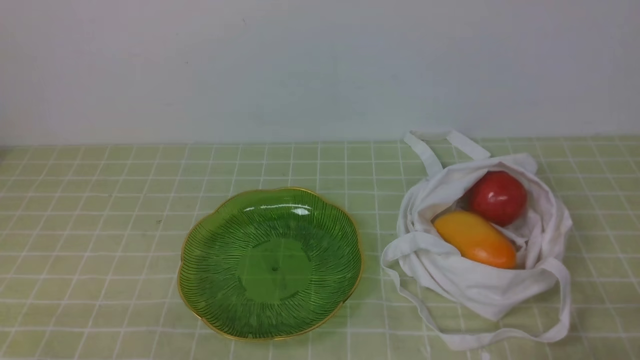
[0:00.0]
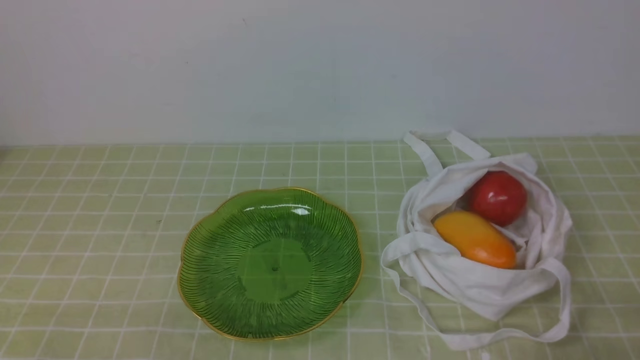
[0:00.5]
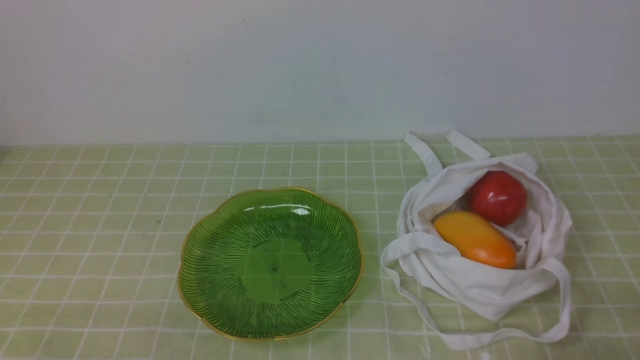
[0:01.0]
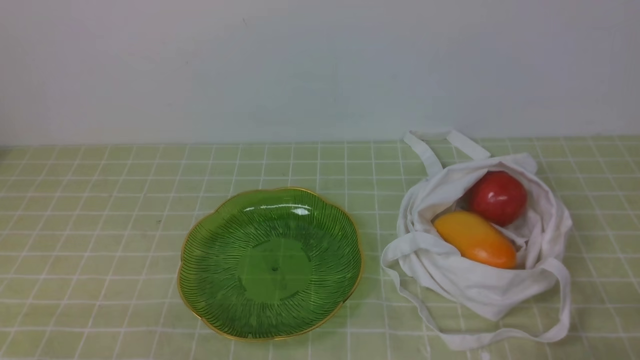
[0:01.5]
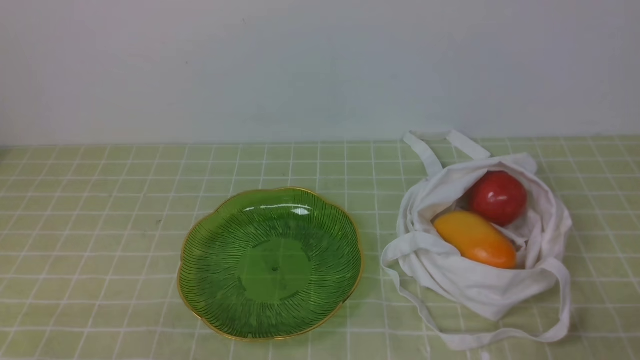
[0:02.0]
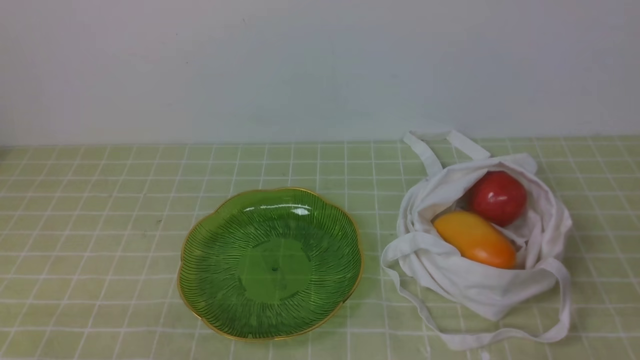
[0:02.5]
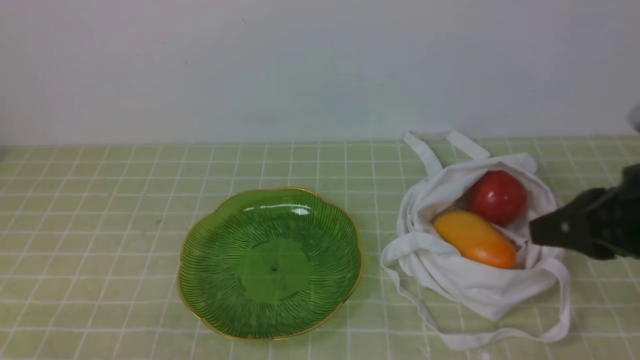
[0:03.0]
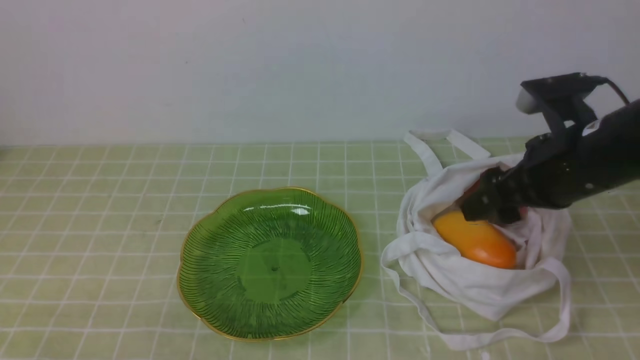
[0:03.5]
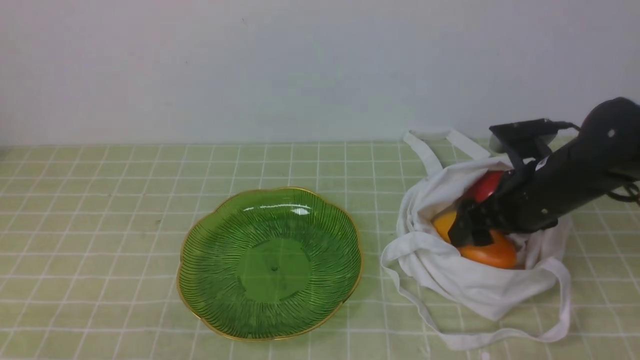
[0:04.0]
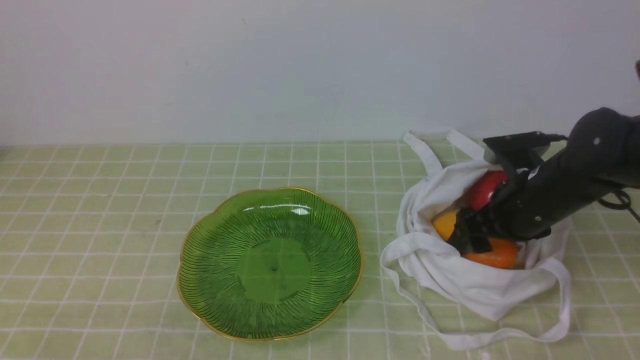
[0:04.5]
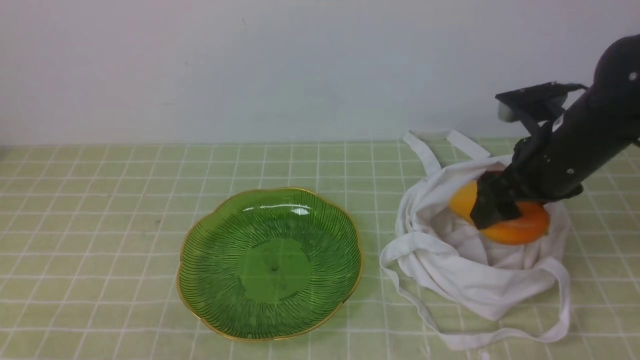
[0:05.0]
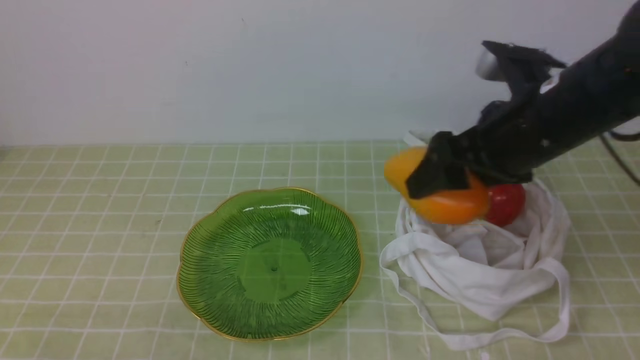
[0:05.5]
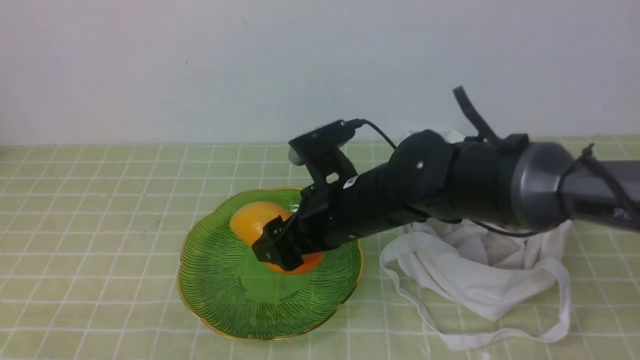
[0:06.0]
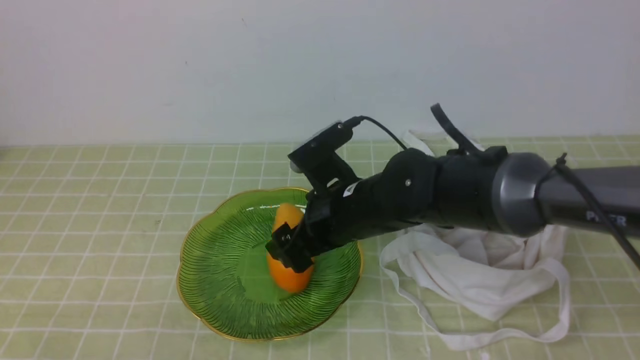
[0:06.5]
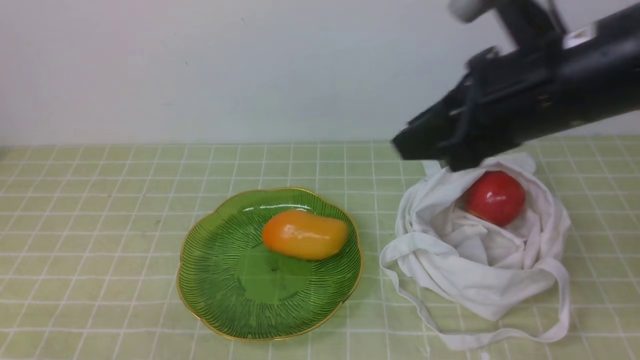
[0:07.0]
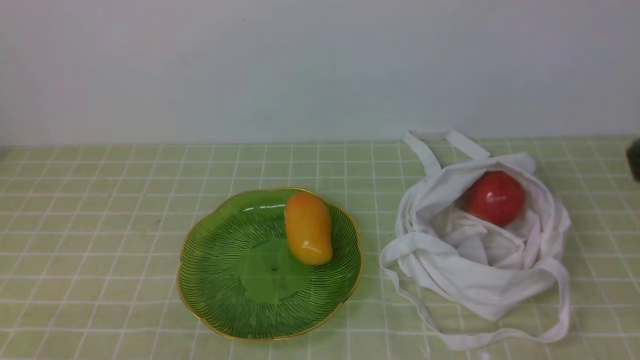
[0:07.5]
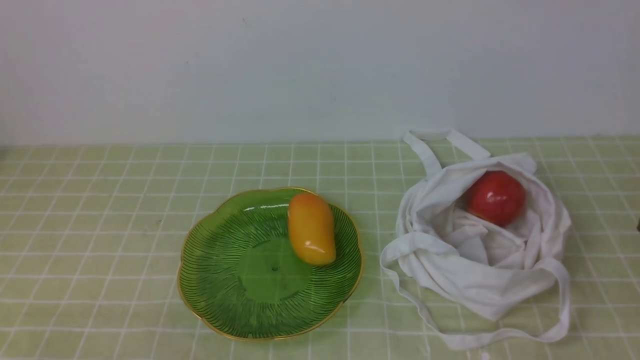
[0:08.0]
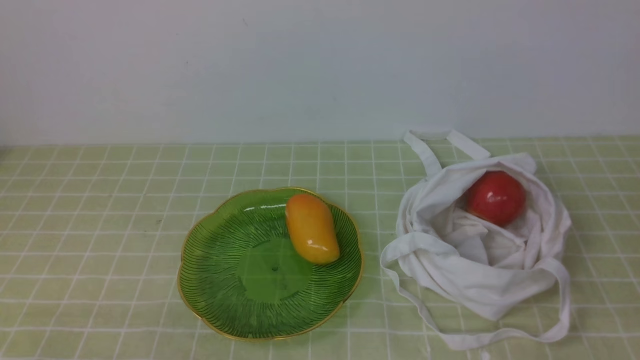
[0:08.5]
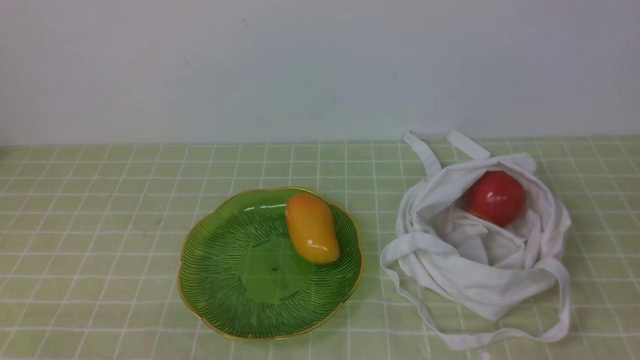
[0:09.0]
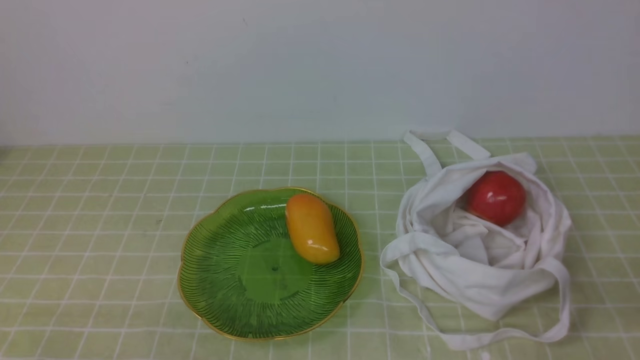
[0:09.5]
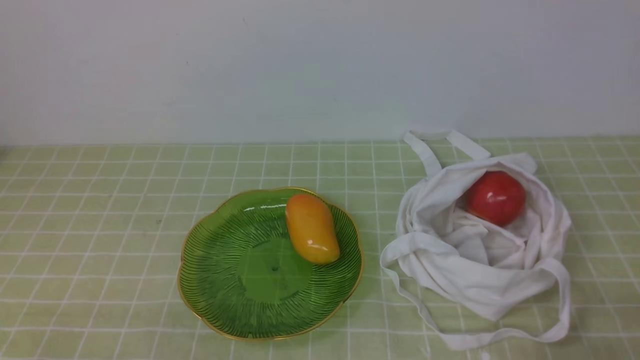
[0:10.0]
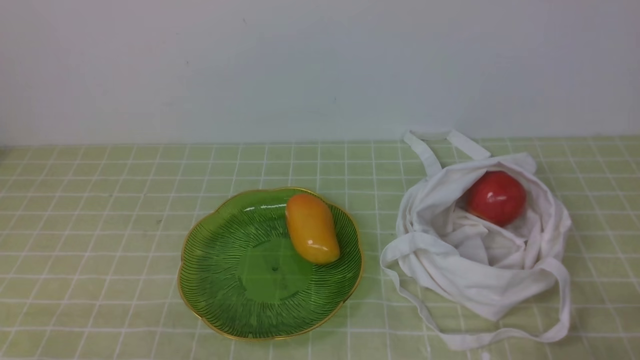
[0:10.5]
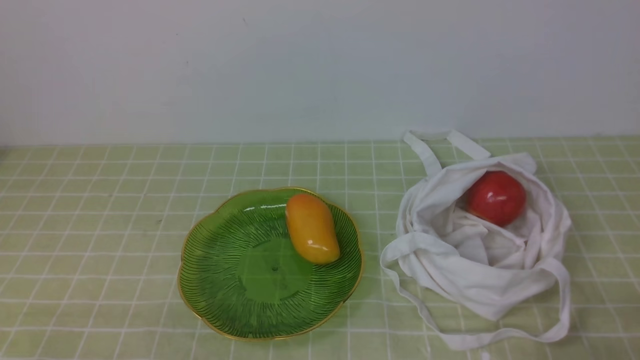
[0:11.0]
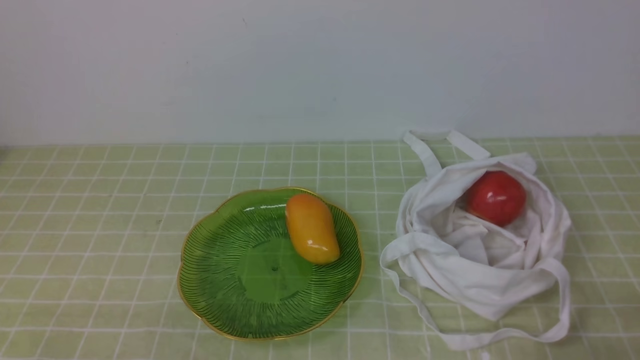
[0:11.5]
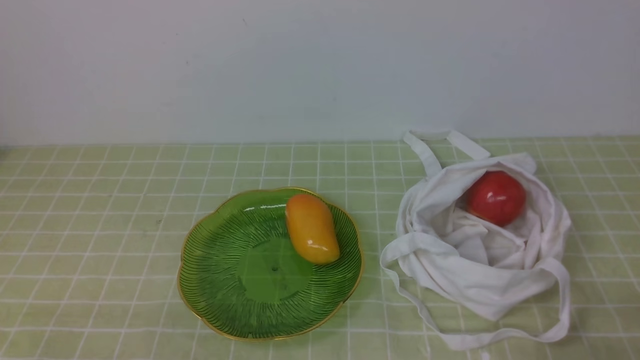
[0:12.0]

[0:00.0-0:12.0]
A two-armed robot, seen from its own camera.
Step, 0:00.0 to 0:04.5: use the right arm to grab a mango from the bag.
Step, 0:05.0 to 0:06.5: use the right arm to put the mango into the empty plate on the left.
0:02.0 to 0:04.0: The right gripper is displaced forward by some 25 cm, and opens up.
0:04.0 to 0:06.0: The right gripper travels to the left by approximately 15 cm.
0:06.0 to 0:08.0: The right gripper heads backward, to the right and upward, covering approximately 30 cm, and closes up.
0:10.0 to 0:12.0: The two grippers keep their place.

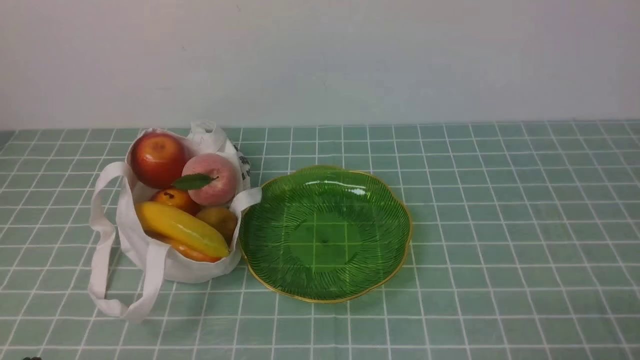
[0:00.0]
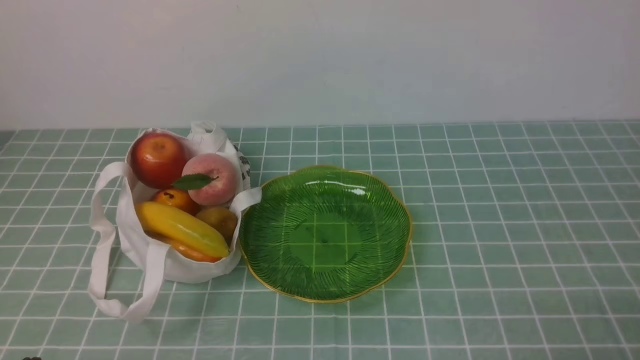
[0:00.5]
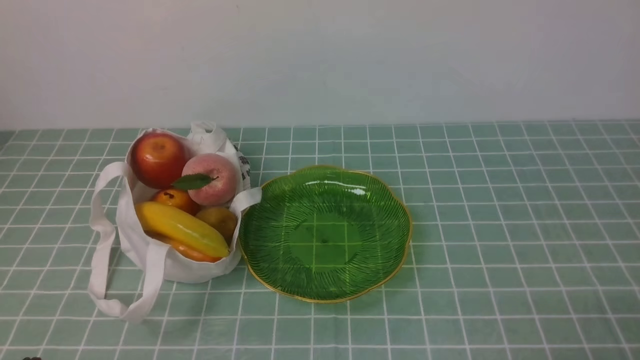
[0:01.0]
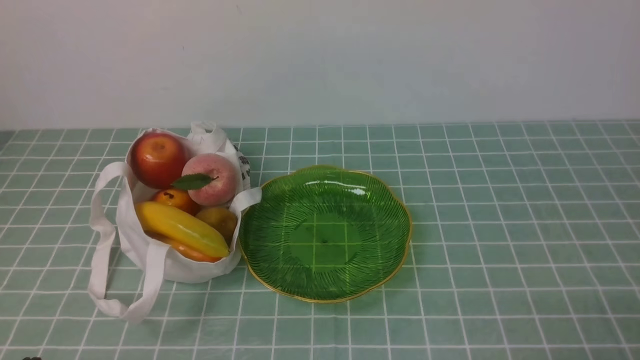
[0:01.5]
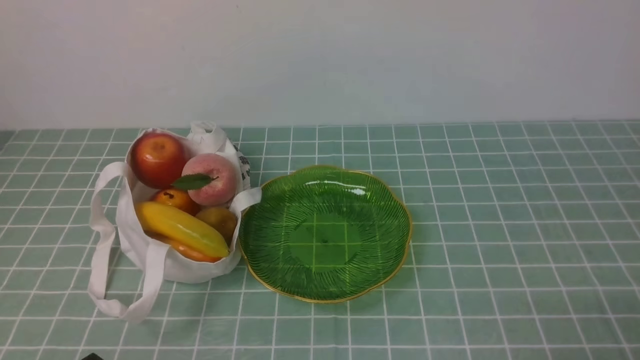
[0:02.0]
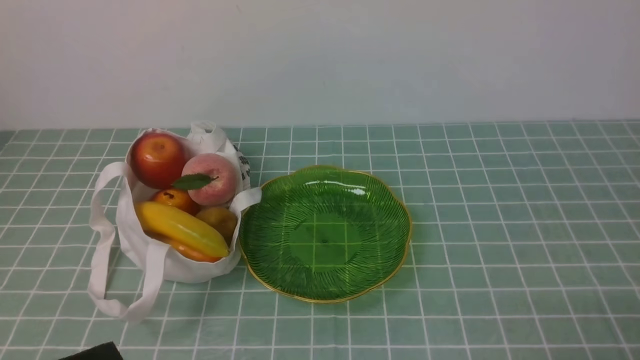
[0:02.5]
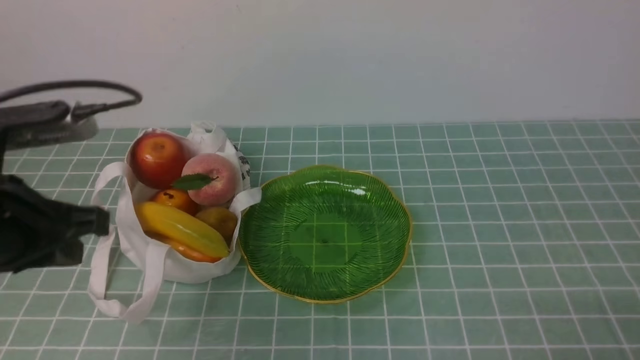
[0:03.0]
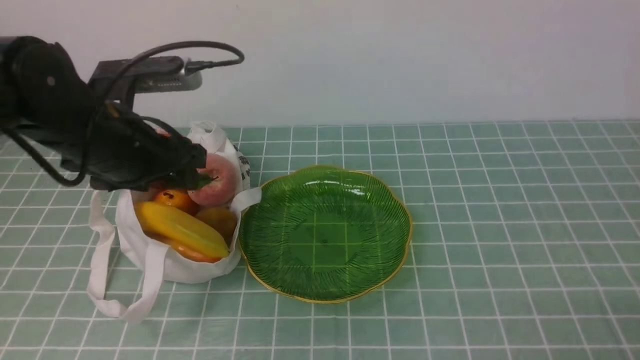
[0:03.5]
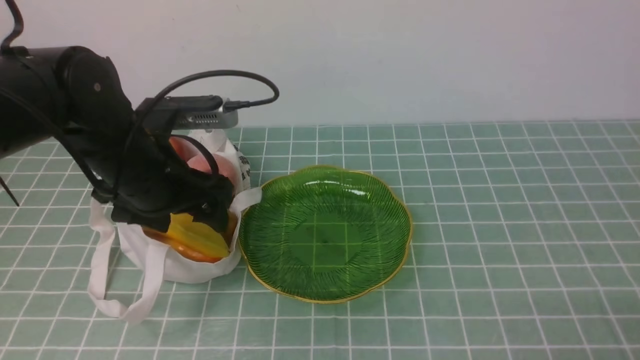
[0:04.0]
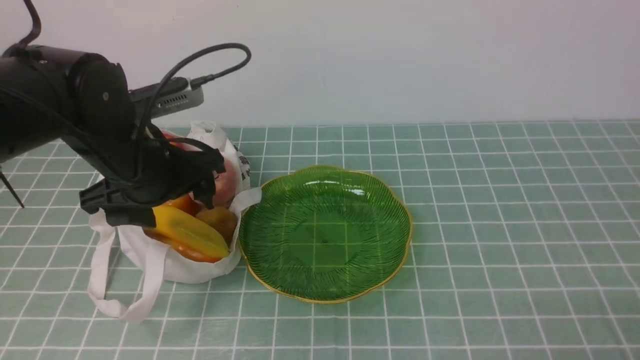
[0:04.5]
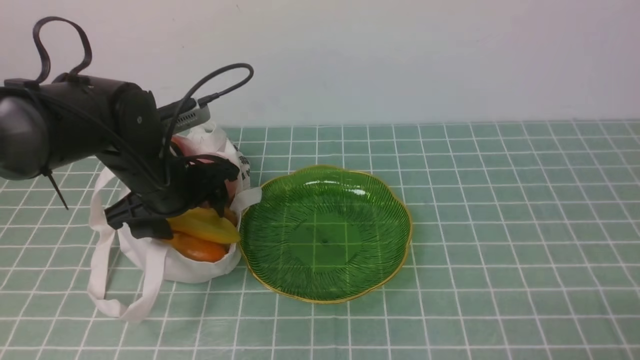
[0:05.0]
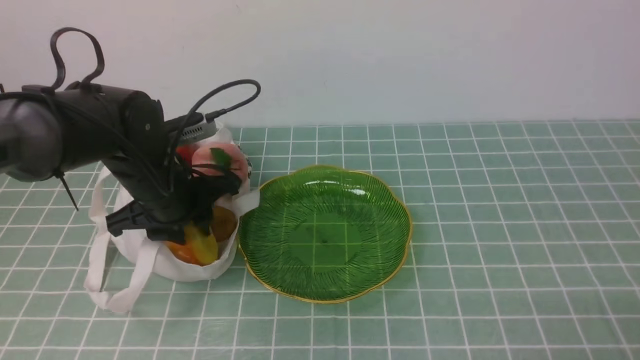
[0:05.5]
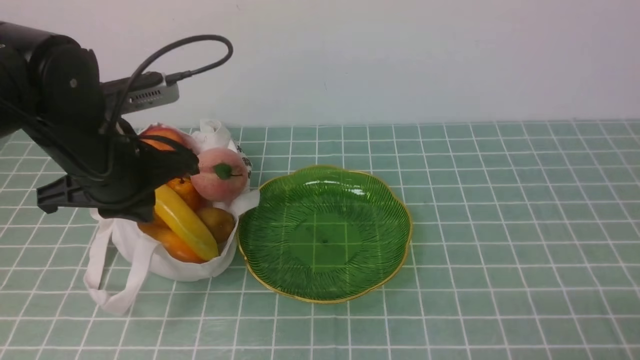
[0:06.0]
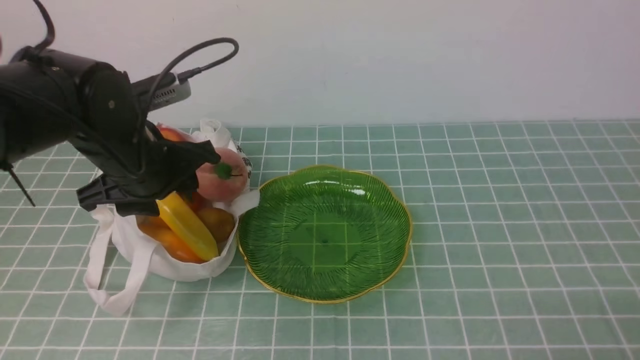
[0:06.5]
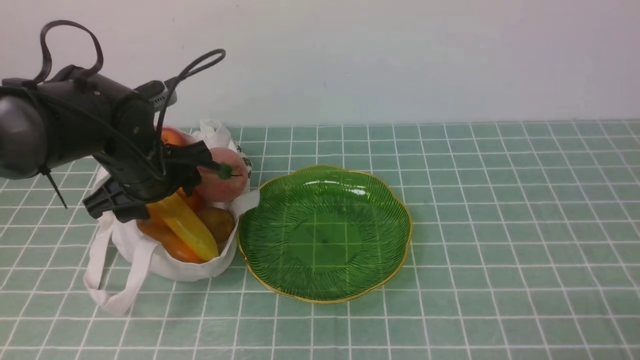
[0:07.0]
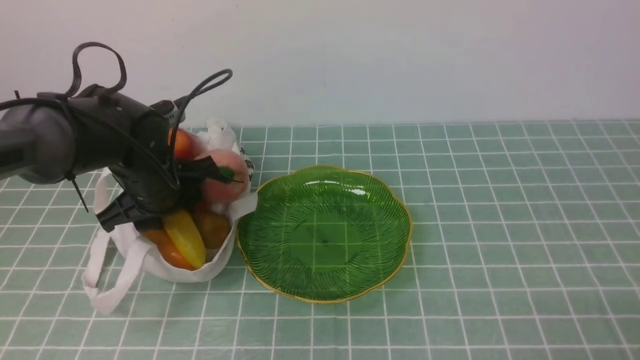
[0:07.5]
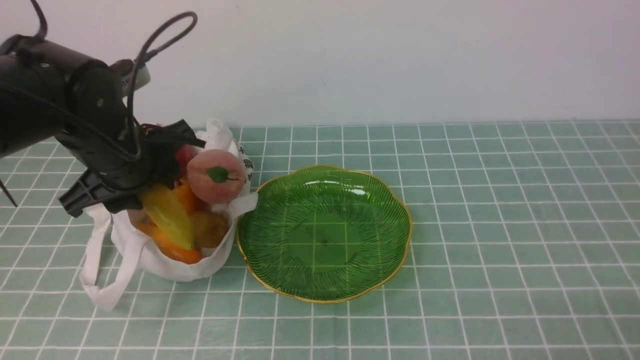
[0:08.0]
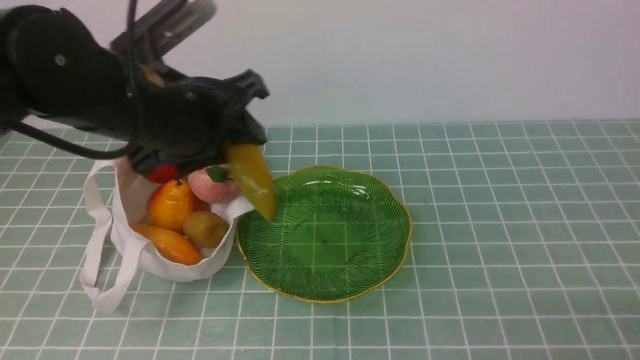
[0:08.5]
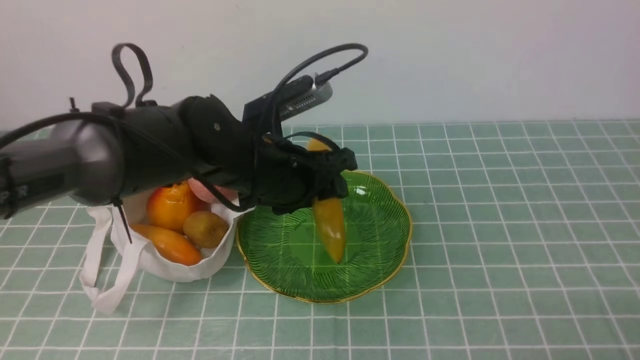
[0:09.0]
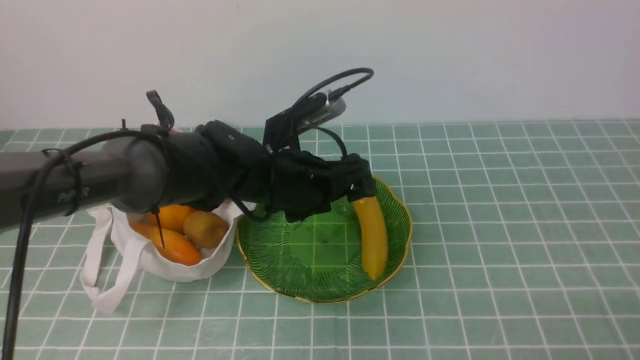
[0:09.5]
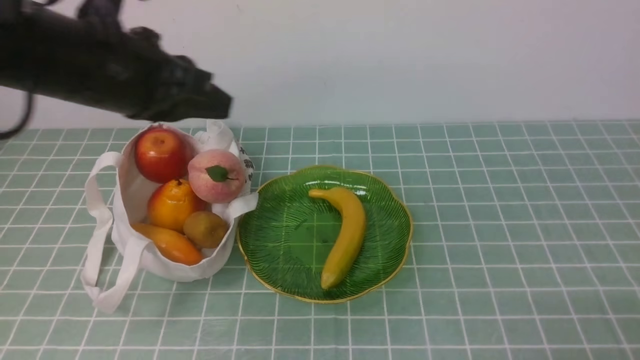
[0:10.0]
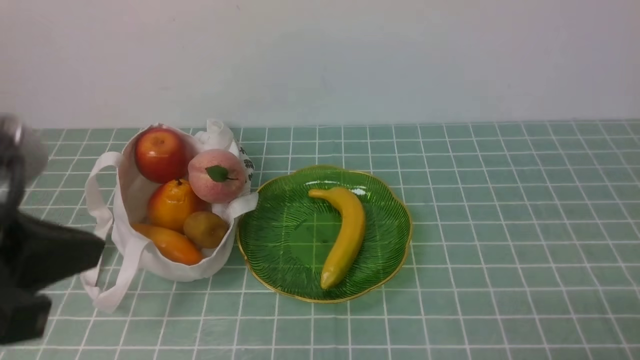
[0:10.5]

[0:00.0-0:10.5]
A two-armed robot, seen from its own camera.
Step, 0:00.0 to 0:08.0: use the left arm to grab a banana from the bag.
Step, 0:08.5 to 0:09.5: use the left arm to put the banana into the empty plate on the right.
0:02.0 to 0:04.0: The left gripper goes approximately 25 cm forward, and opens.
0:04.0 to 0:06.5: The left gripper closes up.
0:06.5 to 0:08.5: The left gripper goes approximately 10 cm upward and to the right.
0:08.5 to 0:10.5: The left gripper is displaced backward and to the left by roughly 20 cm, and closes up.
